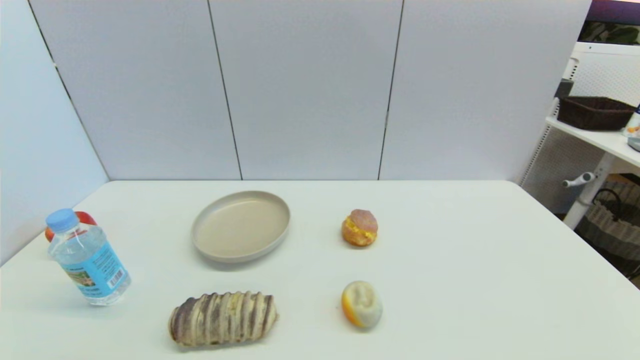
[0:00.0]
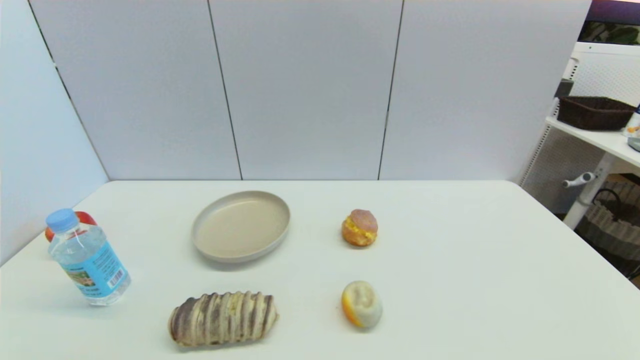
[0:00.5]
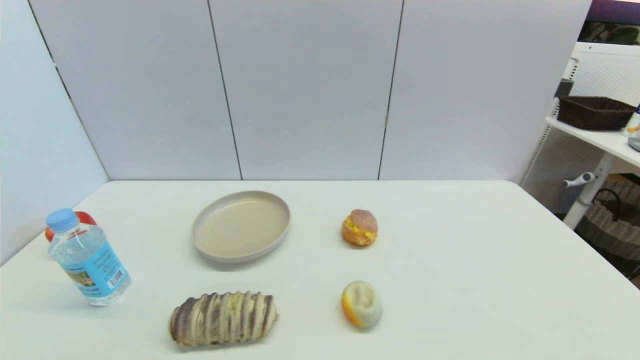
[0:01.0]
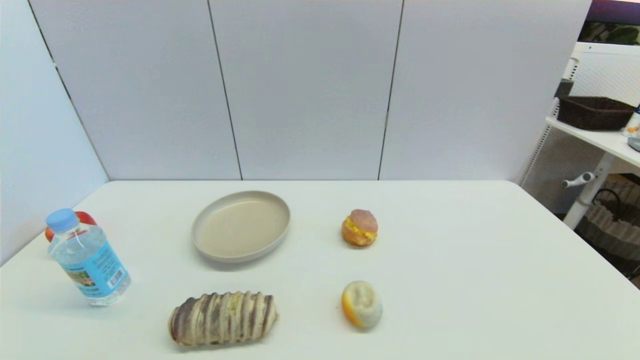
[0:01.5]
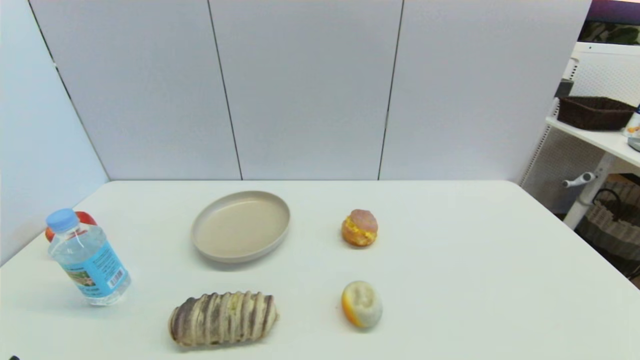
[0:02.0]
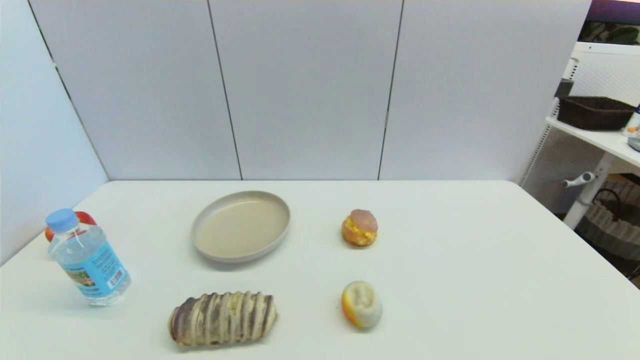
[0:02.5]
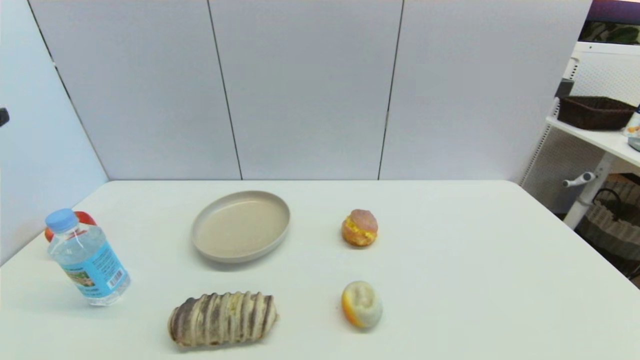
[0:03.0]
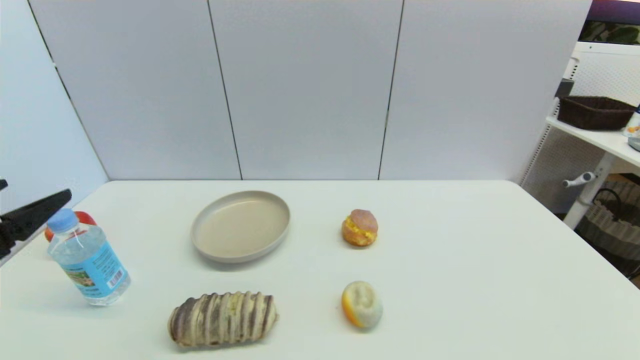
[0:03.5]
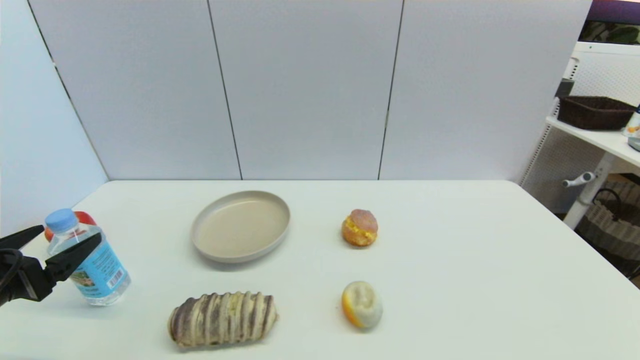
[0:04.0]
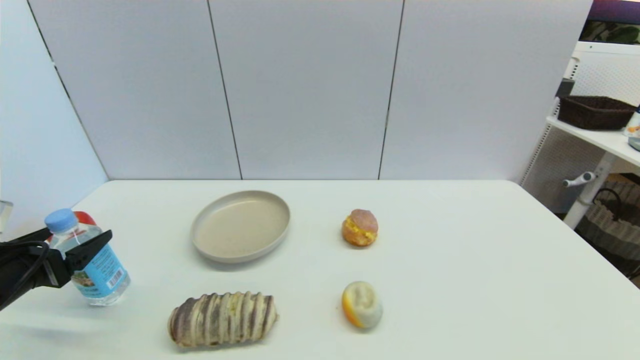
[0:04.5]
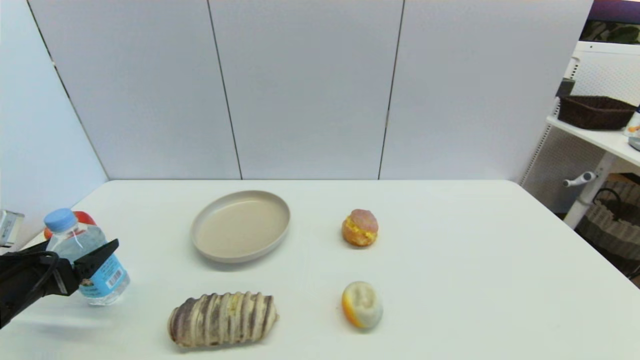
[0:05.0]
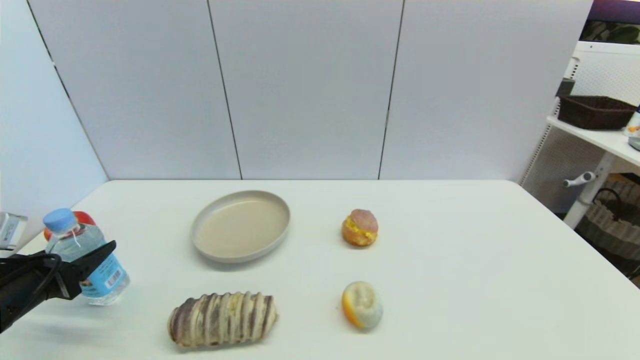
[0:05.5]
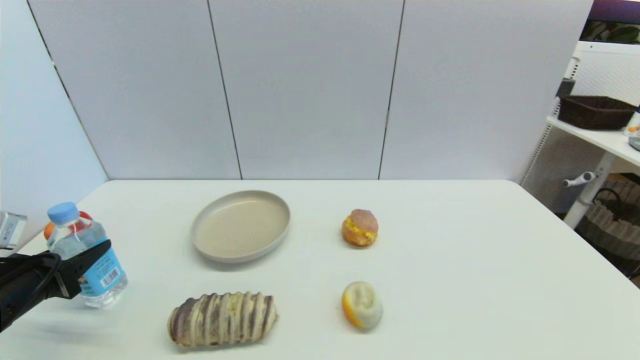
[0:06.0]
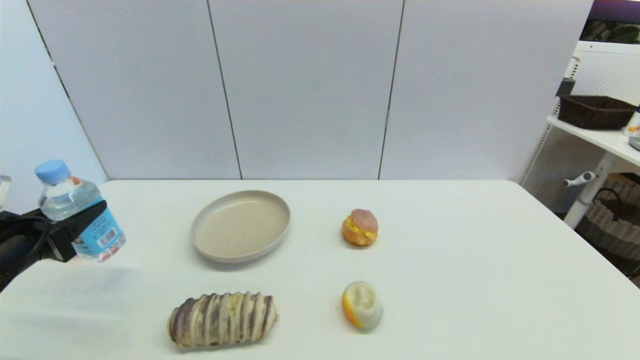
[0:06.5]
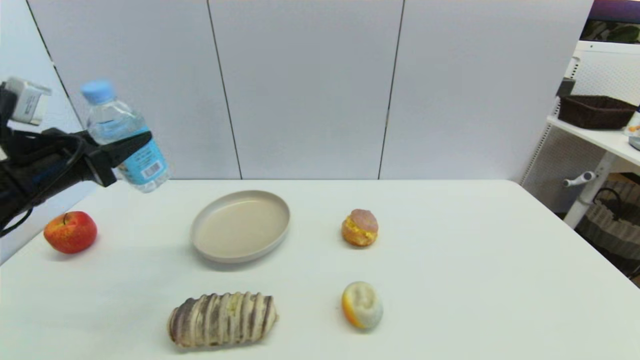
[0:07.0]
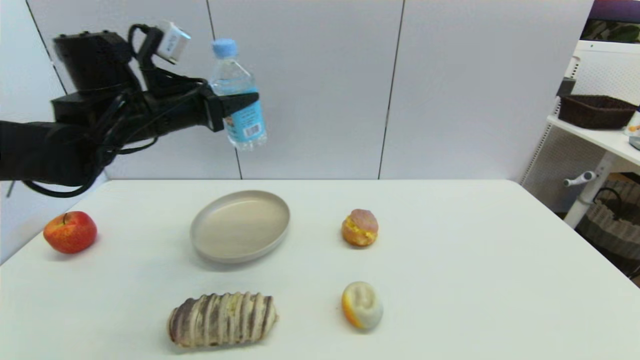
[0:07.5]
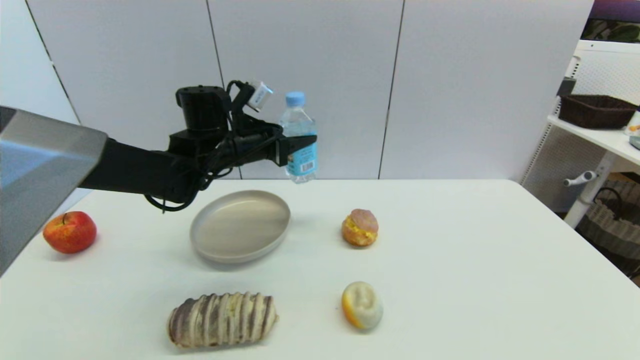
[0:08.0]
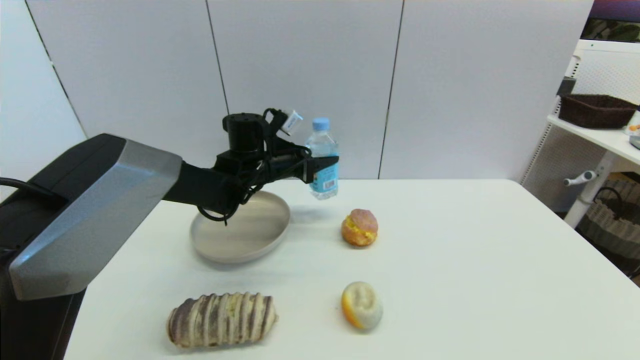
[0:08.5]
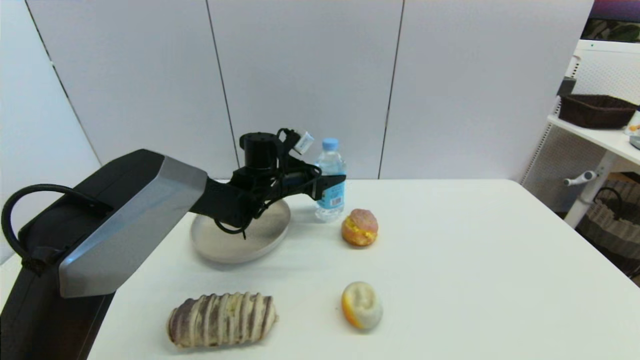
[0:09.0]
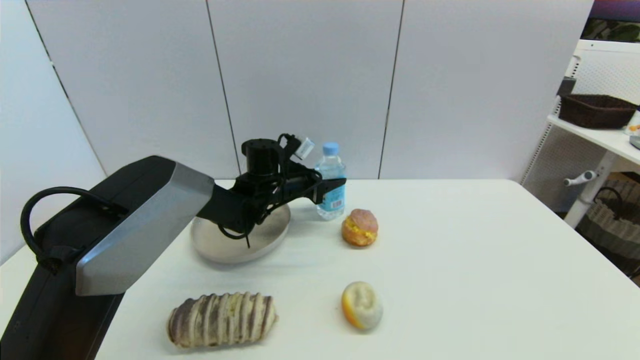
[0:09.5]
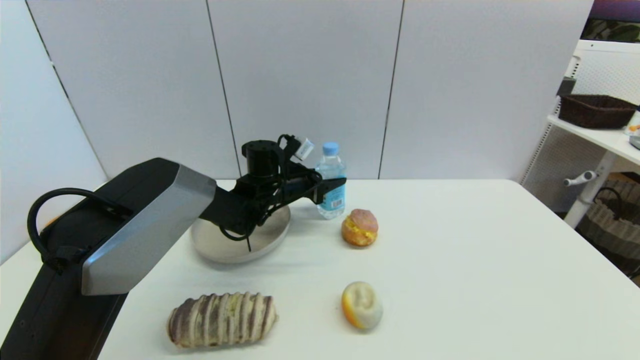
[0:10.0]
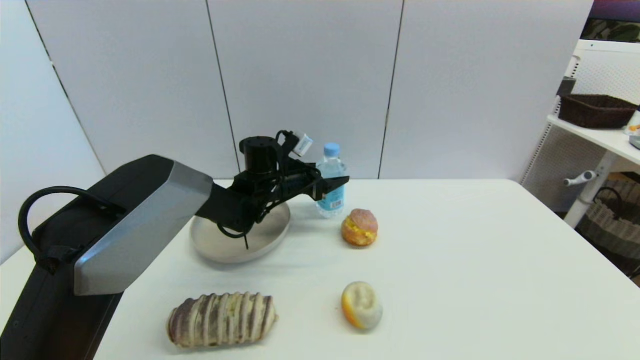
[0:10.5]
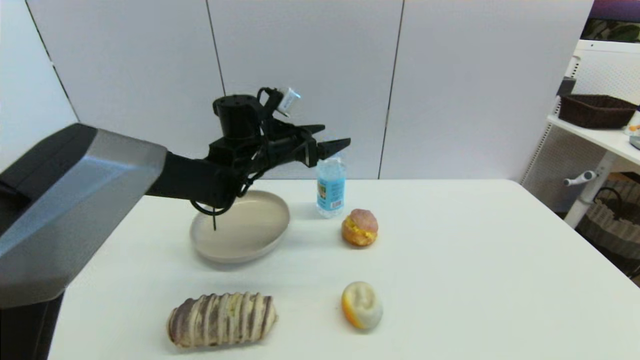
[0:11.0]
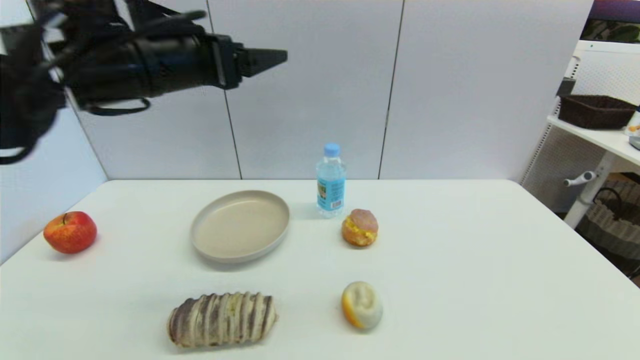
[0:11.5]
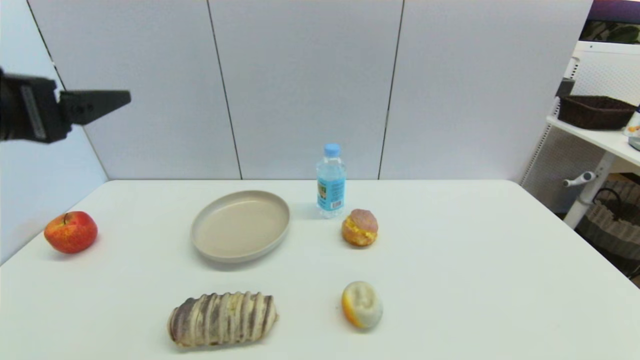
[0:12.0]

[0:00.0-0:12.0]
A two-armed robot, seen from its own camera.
Step, 0:02.0 to 0:05.5: Grasp the soda water with left gripper.
Step, 0:06.0 to 0:10.5: Place the soda water on the table with left gripper.
0:02.0 to 0:04.0: The left gripper heads forward, covering approximately 15 cm.
0:04.0 to 0:06.0: The left gripper changes place by approximately 5 cm, and closes up.
0:06.0 to 0:08.0: The left gripper goes about 35 cm to the right, forward and upward.
0:08.0 to 0:10.0: The left gripper shifts some 10 cm downward and to the right.
0:10.0 to 0:12.0: The left gripper shifts approximately 40 cm backward, upward and to the left, and opens.

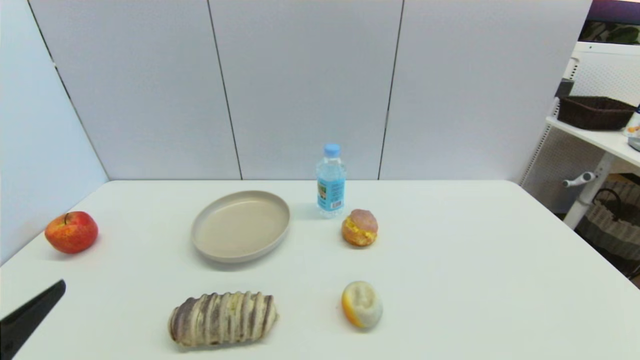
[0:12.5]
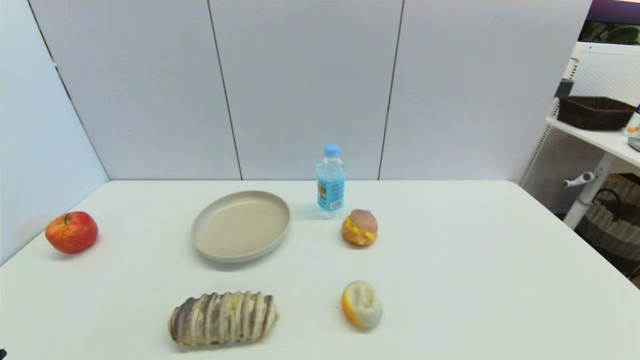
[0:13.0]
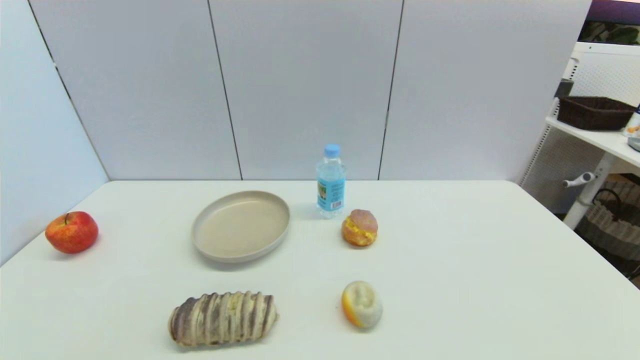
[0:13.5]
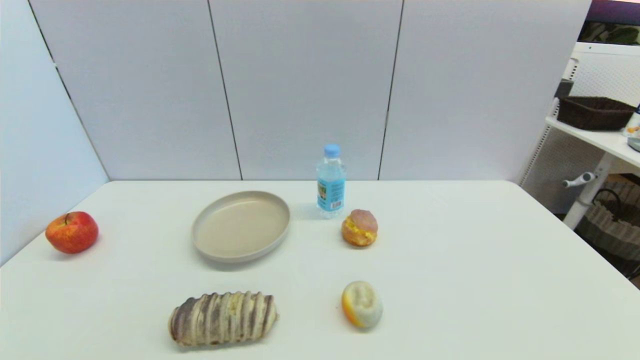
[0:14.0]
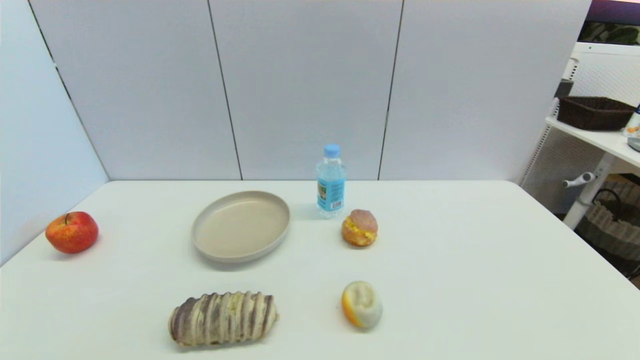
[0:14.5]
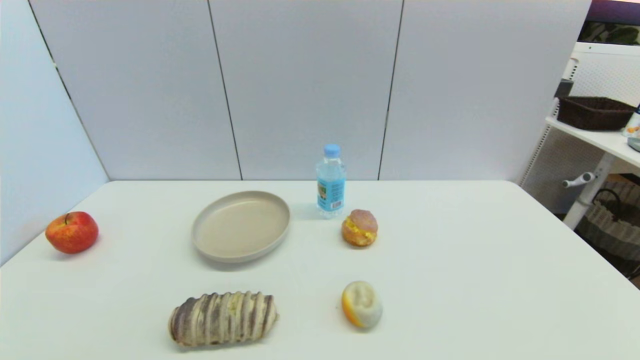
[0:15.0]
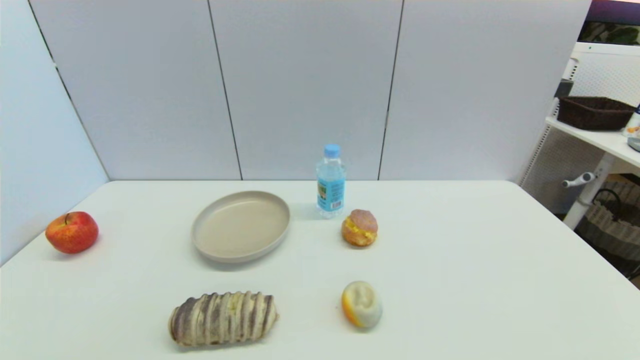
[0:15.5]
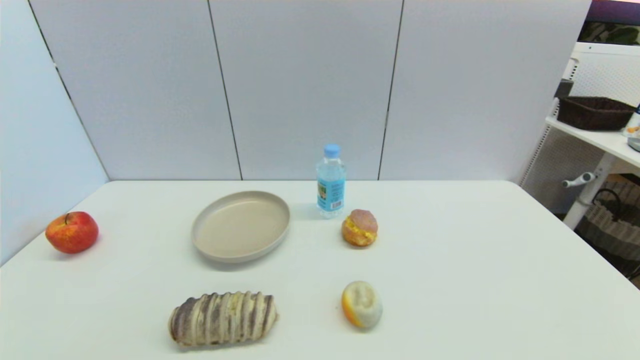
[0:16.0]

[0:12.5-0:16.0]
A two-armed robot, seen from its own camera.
0:12.5 to 0:14.5: The left gripper moves downward and backward, some 10 cm.
0:14.5 to 0:16.0: Neither gripper changes place.

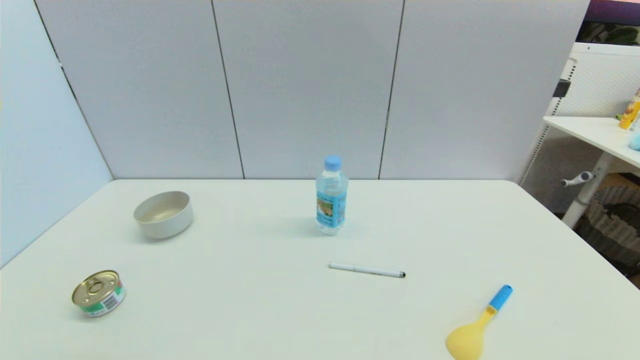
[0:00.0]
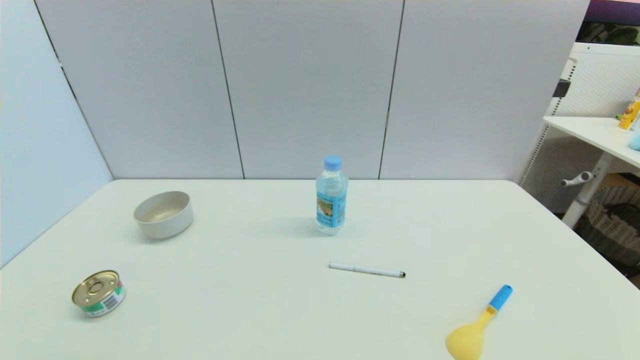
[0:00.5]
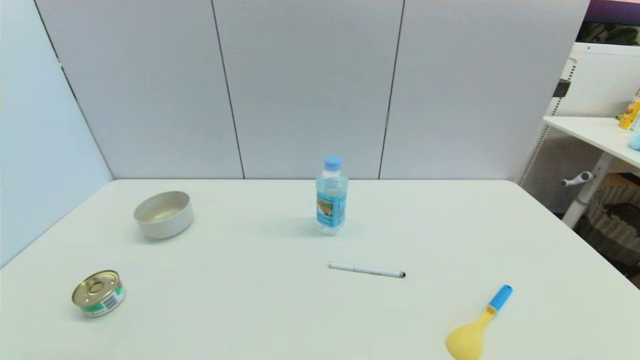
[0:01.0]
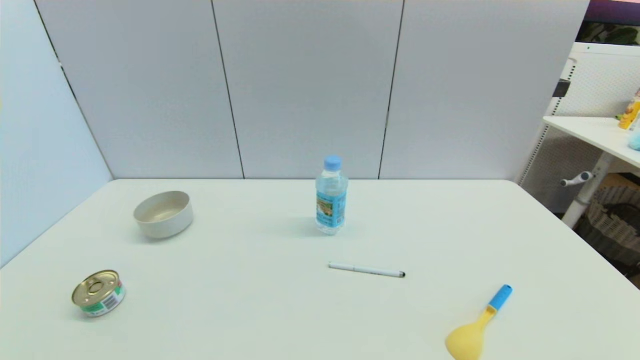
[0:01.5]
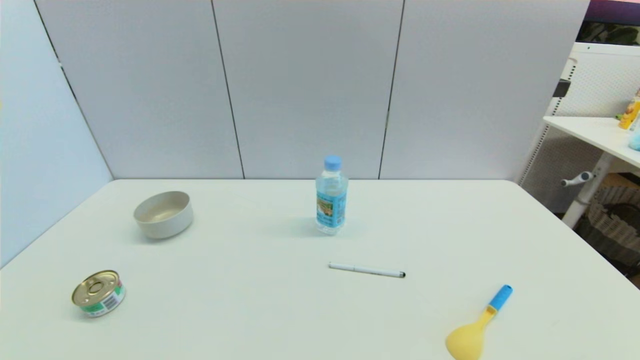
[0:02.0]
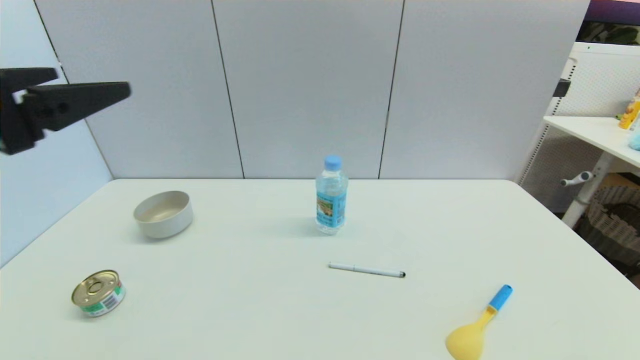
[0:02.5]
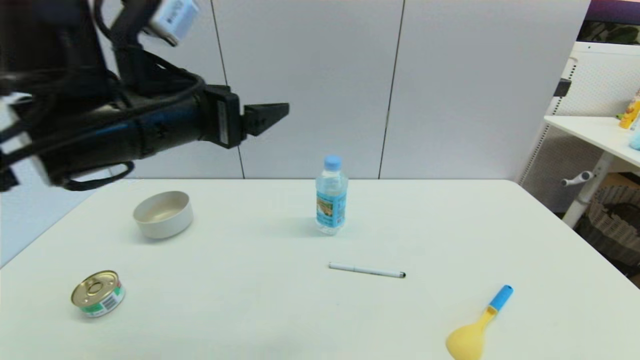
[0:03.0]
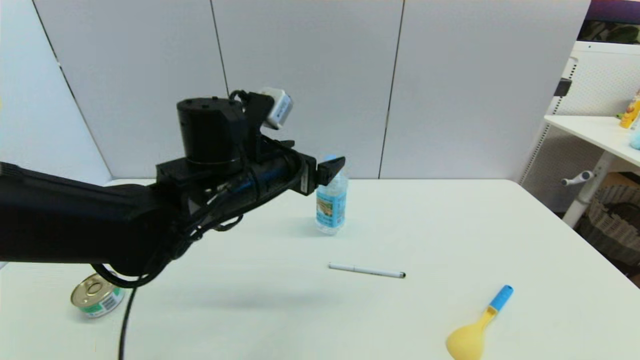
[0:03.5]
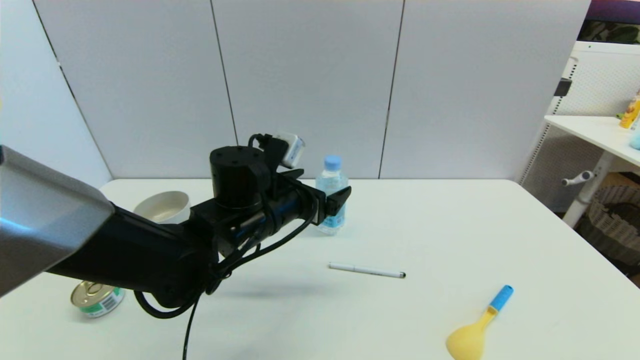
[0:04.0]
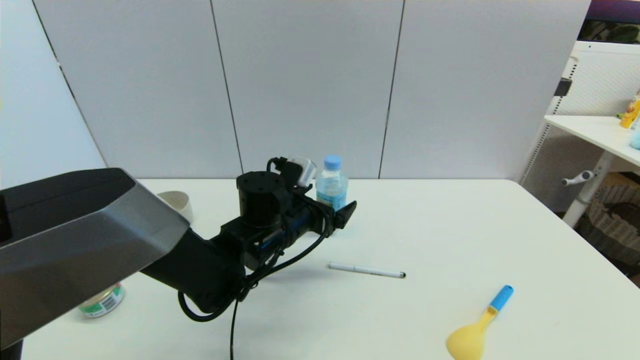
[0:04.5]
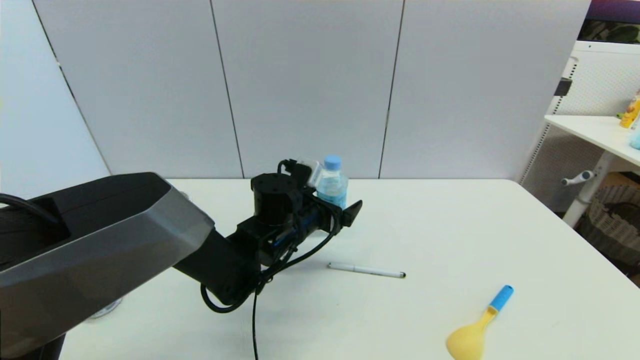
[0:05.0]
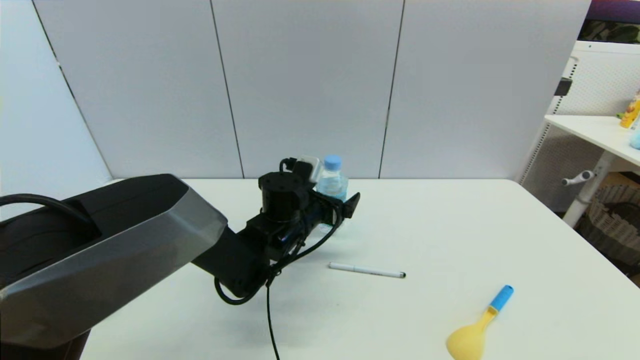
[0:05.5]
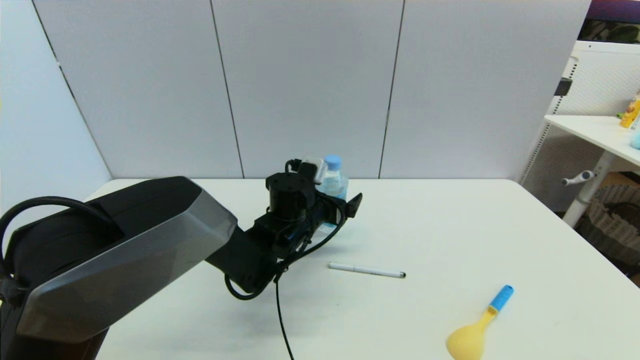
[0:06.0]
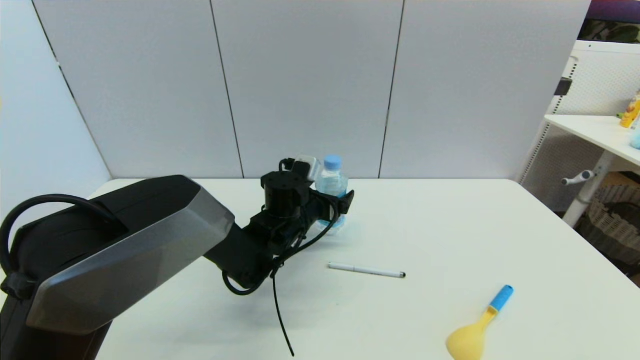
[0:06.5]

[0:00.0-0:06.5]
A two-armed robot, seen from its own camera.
0:02.0 to 0:04.5: The left gripper is displaced forward, to the right and downward by some 40 cm.
0:04.5 to 0:06.5: The left gripper shifts some 5 cm forward.
